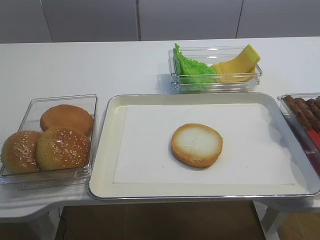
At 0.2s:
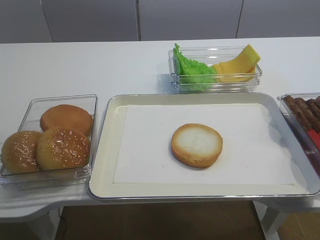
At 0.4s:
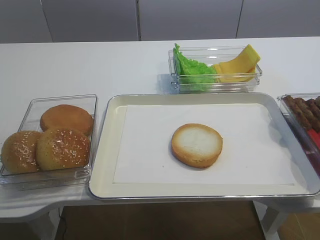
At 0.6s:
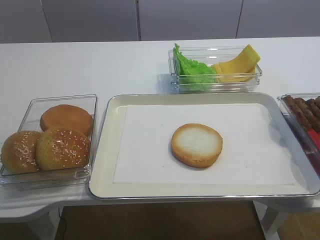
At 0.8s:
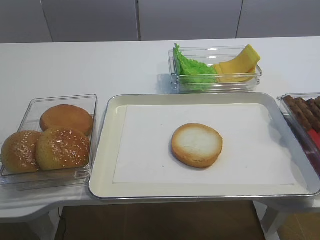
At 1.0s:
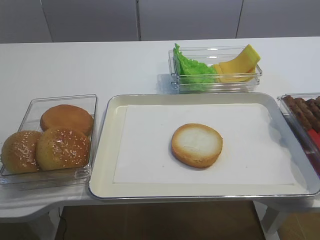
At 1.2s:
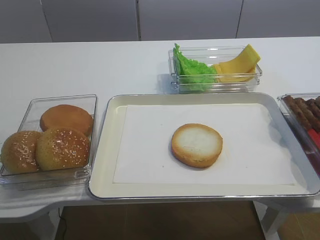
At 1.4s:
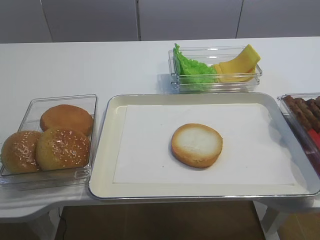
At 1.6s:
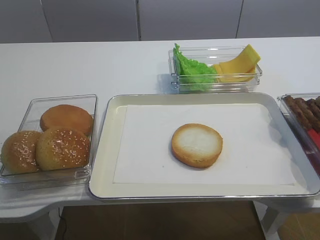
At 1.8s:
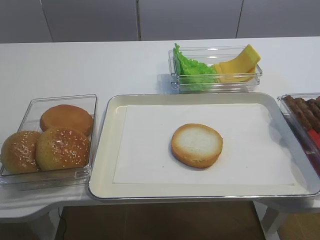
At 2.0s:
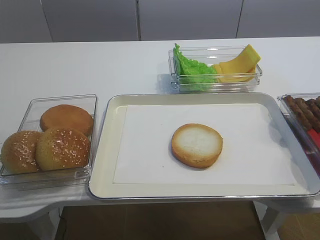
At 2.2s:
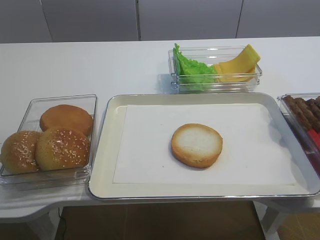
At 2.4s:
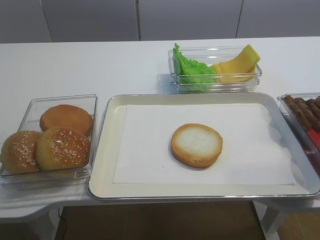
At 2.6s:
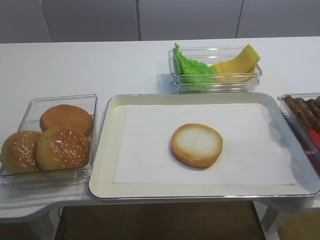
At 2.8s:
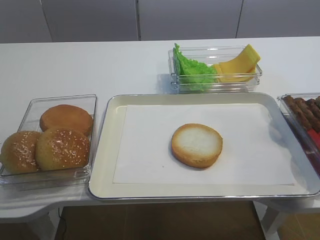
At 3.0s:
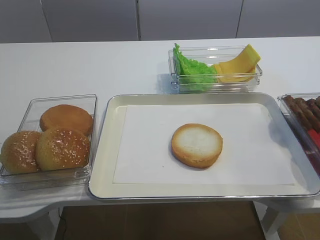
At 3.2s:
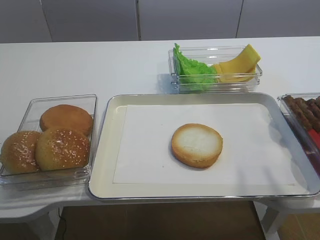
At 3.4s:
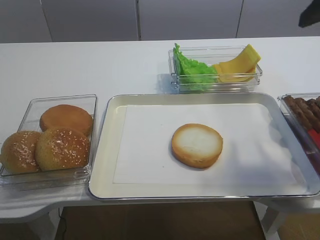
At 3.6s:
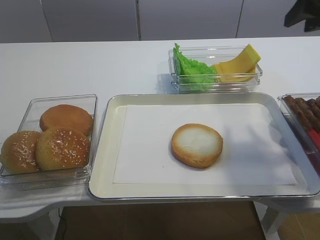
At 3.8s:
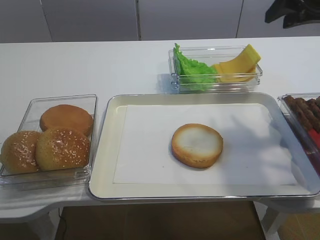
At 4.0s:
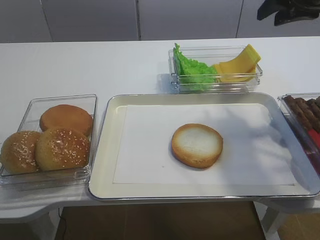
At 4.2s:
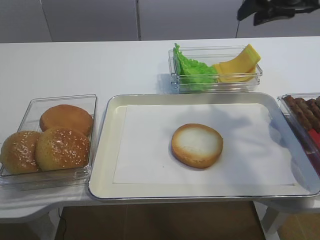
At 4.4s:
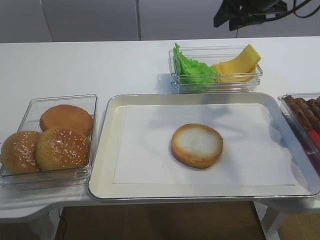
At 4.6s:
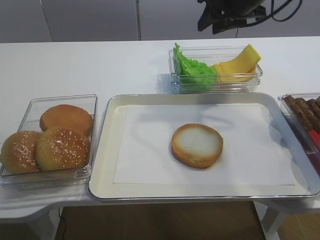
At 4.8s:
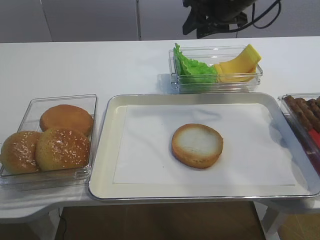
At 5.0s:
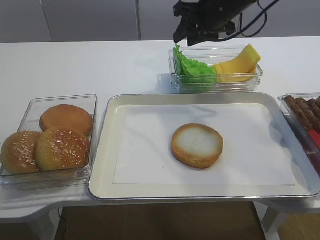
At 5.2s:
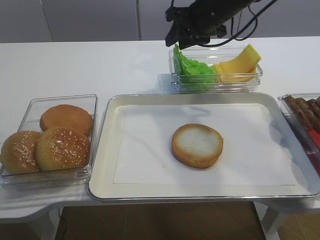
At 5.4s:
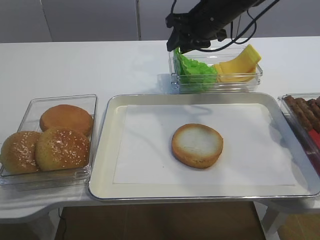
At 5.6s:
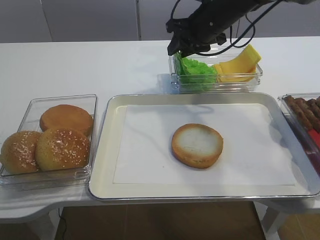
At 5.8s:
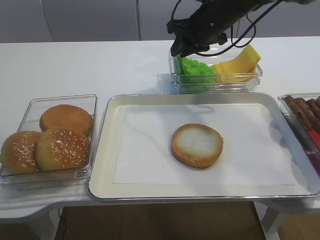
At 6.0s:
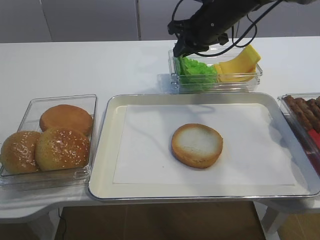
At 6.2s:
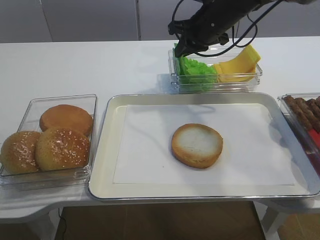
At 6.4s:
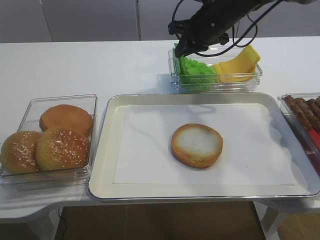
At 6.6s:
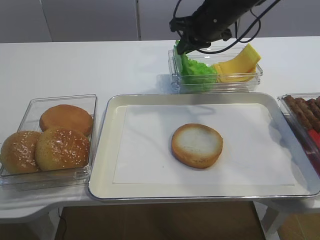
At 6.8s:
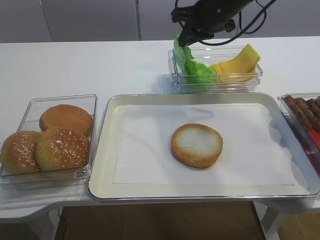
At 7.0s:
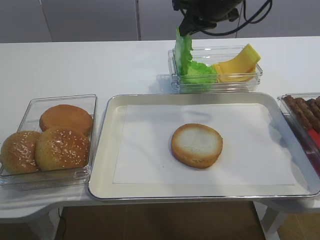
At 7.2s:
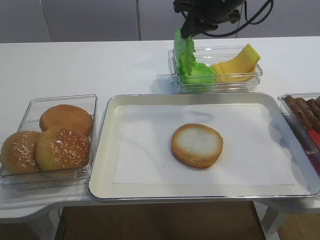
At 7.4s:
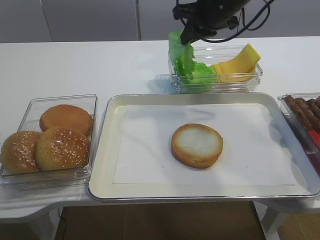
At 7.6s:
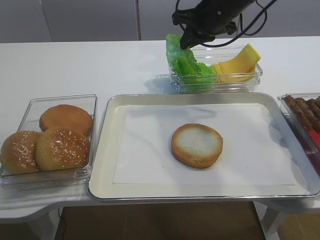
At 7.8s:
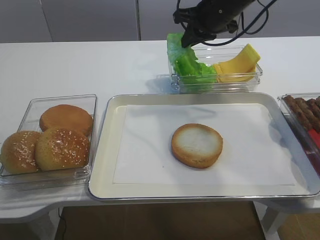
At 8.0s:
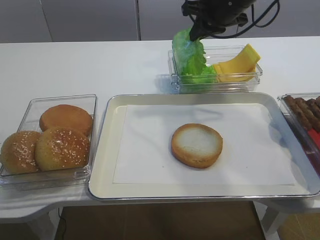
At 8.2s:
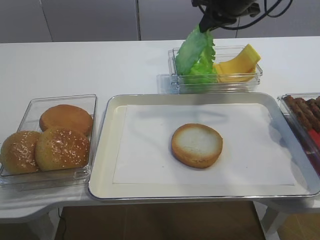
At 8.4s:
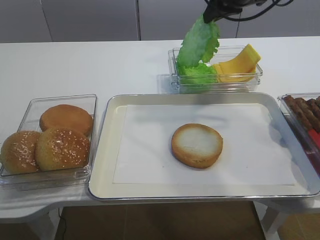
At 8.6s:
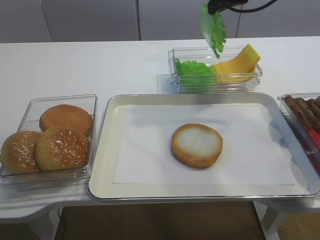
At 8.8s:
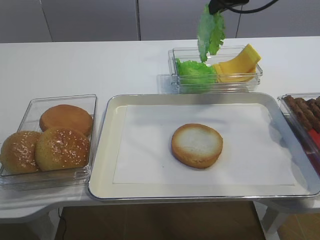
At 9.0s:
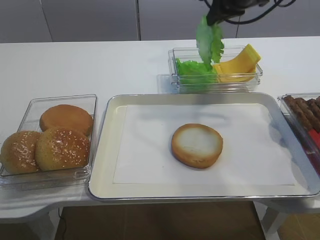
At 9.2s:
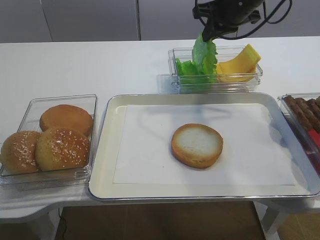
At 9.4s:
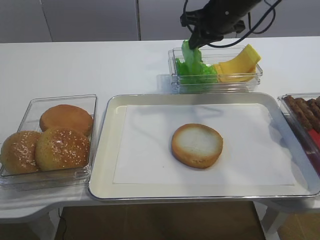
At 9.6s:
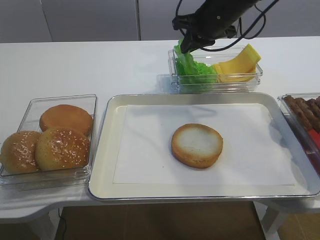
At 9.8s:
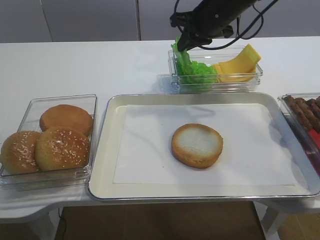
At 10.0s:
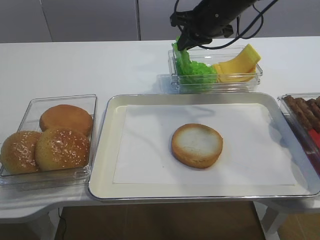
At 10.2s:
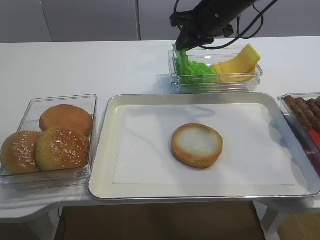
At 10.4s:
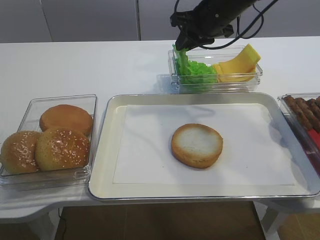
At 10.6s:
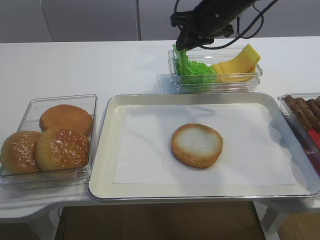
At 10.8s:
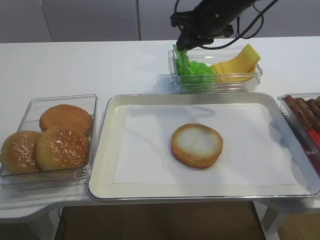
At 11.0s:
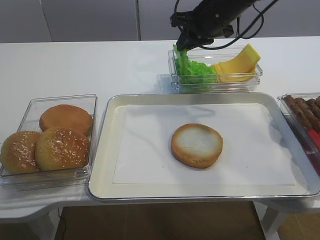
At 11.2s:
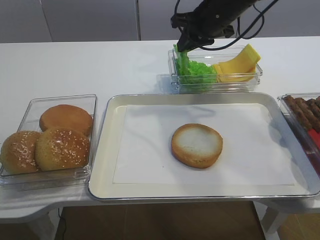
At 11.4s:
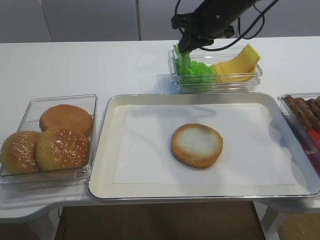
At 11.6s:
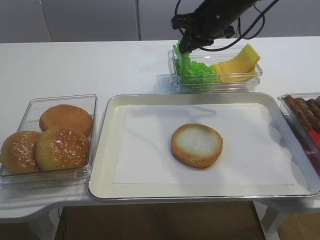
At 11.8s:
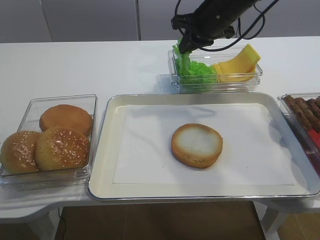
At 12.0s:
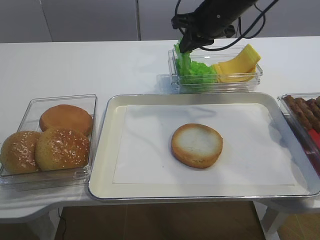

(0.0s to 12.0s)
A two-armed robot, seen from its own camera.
Step, 0.0s - 8.4s: Pick up the lettuce leaf with the right gripper.
1.6s - 3.0s: The right gripper goes some 20 cm forward and upward, and opens.
3.0s - 4.4s: The right gripper moves forward, about 25 cm.
4.4s - 6.0s: The right gripper moves to the left and downward, about 10 cm, and closes up.
6.0s - 7.6s: The grippers make only small movements.
7.6s - 9.0s: The right gripper ends up some 5 cm from where it was.
9.0s - 10.4s: The right gripper shifts roughly 5 cm downward.
10.4s - 12.0s: The two grippers keep their place.

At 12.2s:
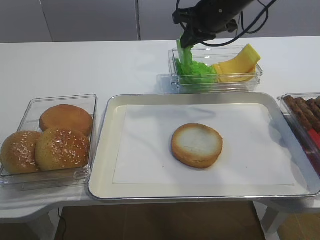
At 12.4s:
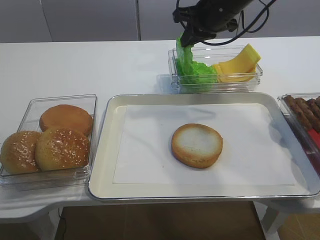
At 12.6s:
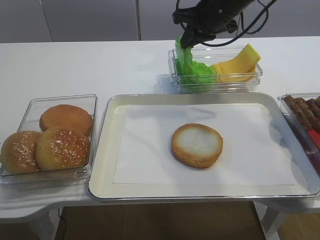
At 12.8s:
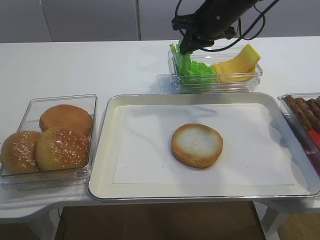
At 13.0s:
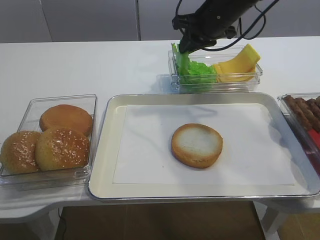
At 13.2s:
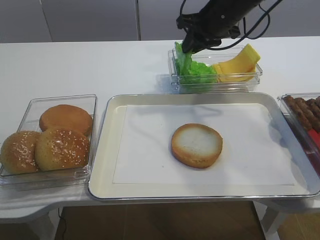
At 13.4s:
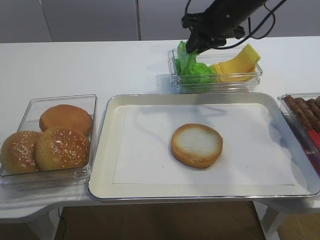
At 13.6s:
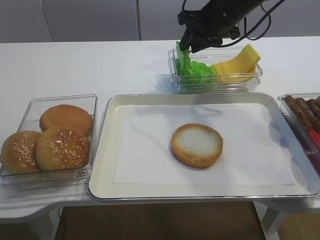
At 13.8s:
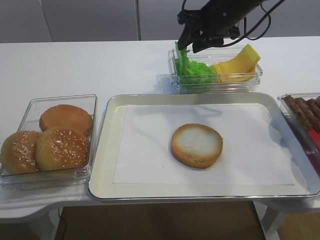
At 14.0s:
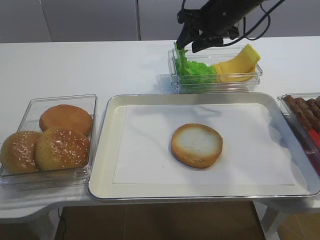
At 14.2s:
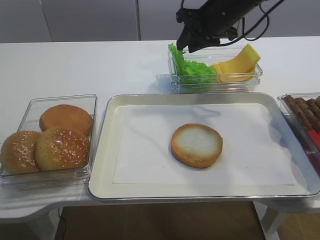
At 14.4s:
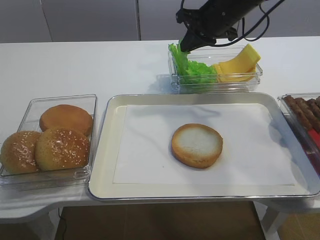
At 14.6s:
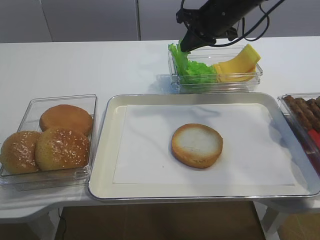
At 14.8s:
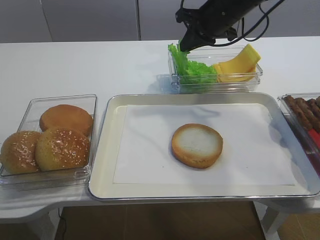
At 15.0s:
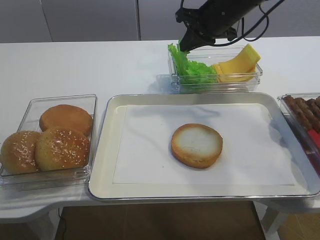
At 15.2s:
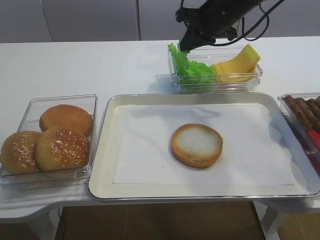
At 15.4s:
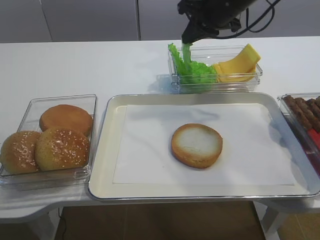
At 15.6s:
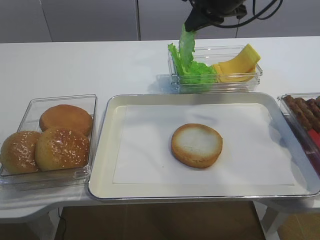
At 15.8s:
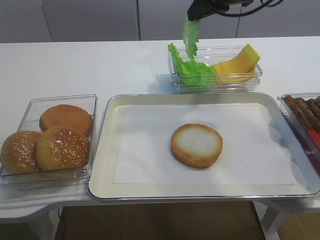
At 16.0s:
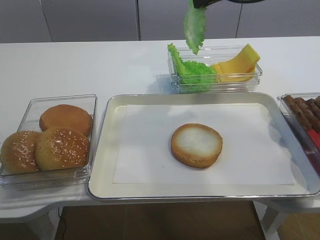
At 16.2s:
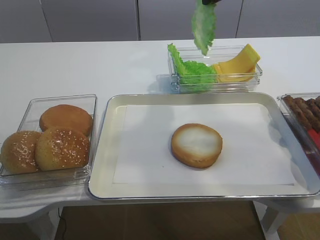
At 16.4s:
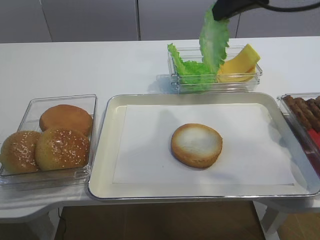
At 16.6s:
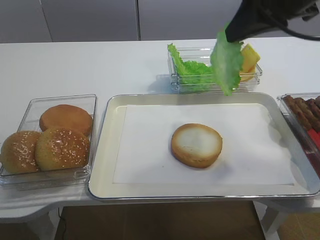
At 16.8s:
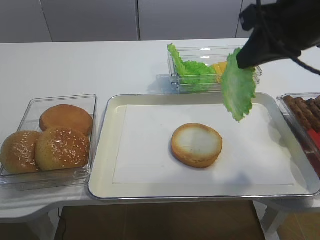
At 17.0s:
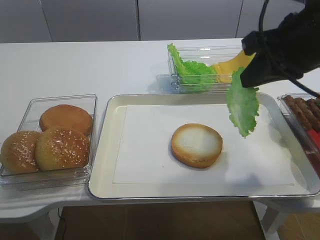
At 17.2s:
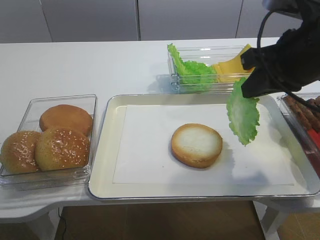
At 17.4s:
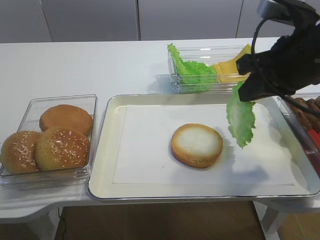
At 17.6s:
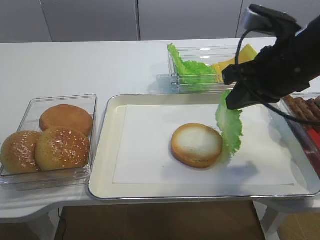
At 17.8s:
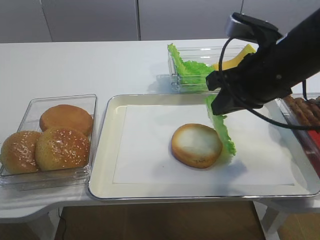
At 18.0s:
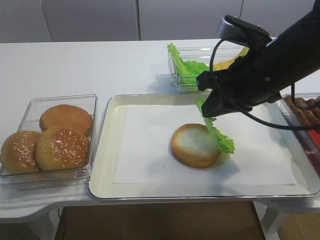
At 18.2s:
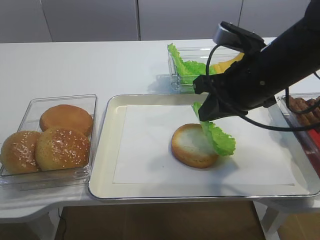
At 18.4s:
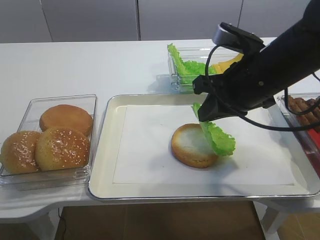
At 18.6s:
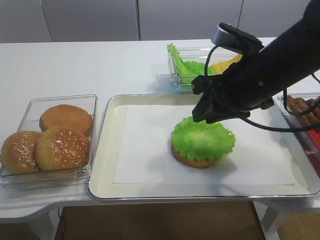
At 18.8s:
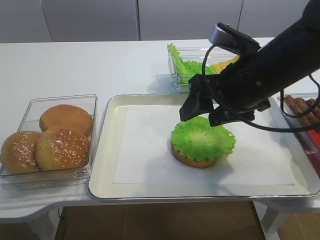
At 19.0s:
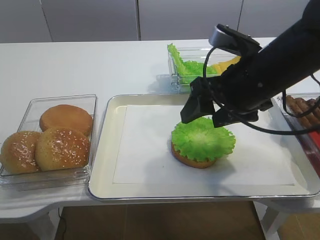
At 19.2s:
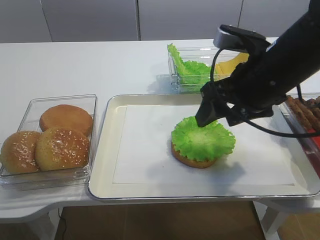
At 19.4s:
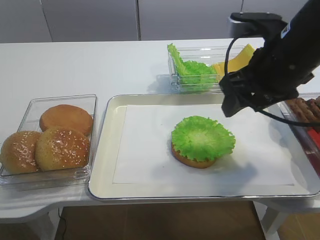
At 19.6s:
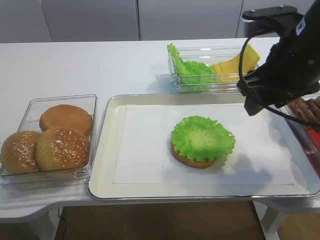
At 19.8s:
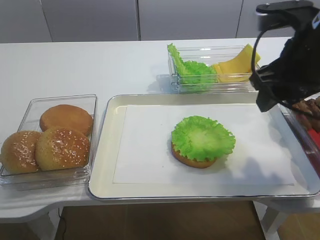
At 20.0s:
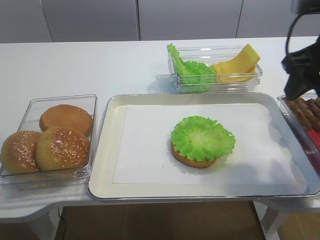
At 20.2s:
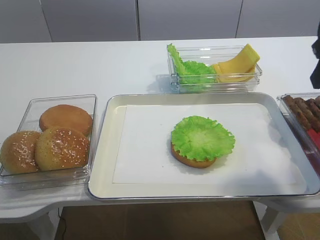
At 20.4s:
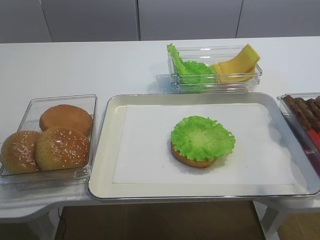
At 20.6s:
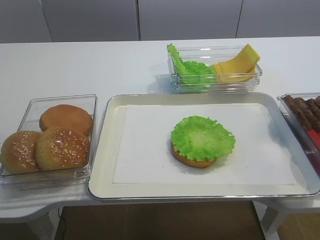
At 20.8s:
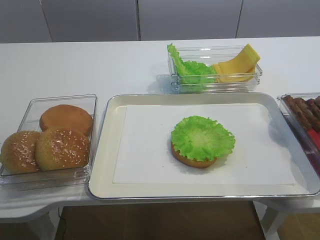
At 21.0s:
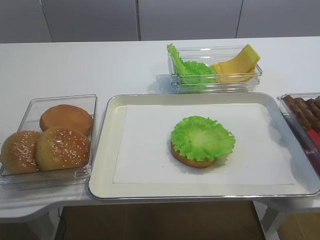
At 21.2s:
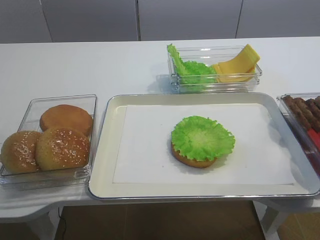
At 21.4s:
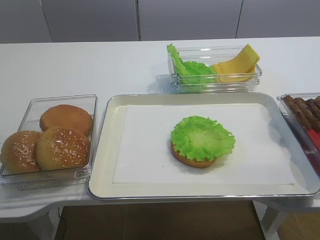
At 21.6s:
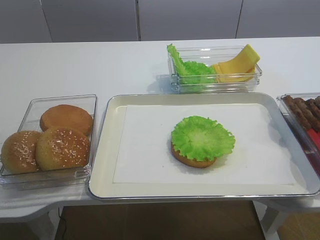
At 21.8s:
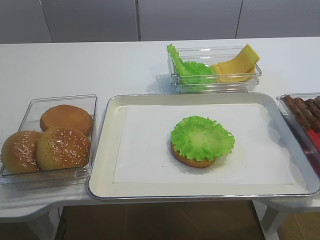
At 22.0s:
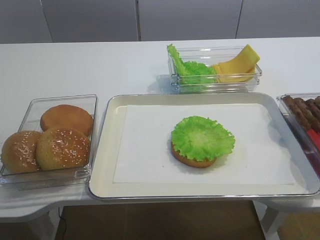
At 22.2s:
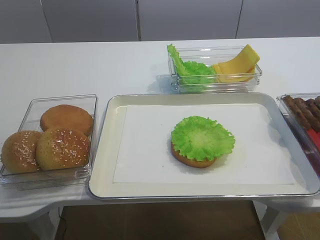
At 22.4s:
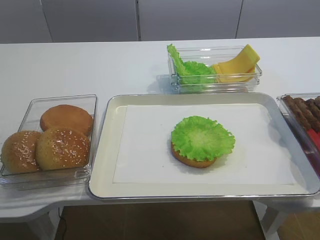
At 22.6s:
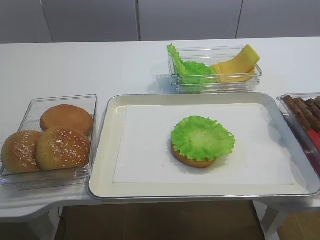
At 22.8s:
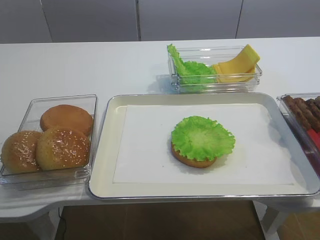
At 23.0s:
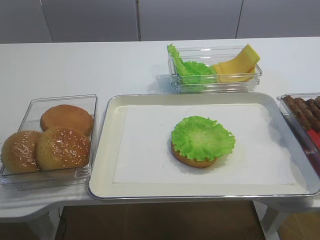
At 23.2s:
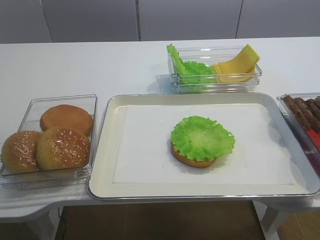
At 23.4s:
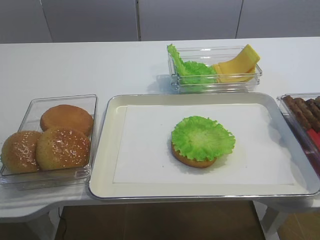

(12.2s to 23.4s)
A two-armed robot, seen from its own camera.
Step, 12.2s - 19.2s: Place the lettuce leaf on the bread slice with the right gripper.
12.2s - 13.8s: The right gripper opens its fingers.
13.8s - 15.4s: The right gripper closes.
15.4s - 17.0s: The right gripper moves backward, approximately 20 cm.
17.0s - 18.6s: The right gripper goes about 5 cm downward.
18.6s - 20.2s: The right gripper goes about 15 cm to the right and upward, and opens.
20.2s - 21.8s: The right gripper is displaced backward by approximately 30 cm.
